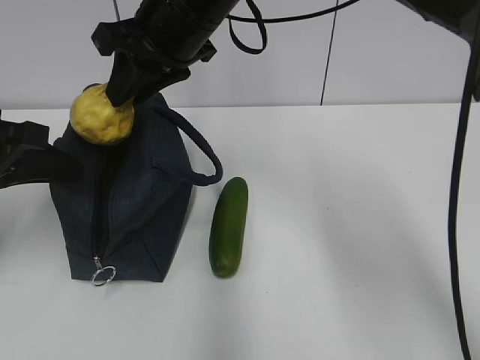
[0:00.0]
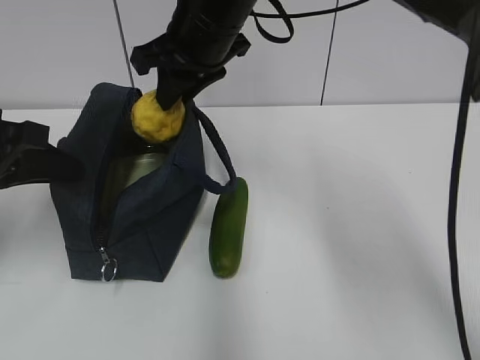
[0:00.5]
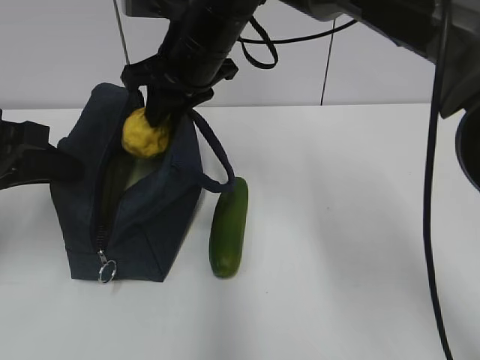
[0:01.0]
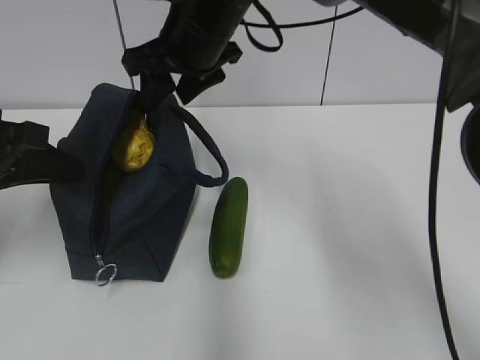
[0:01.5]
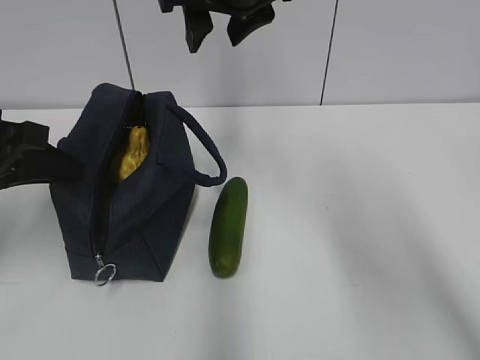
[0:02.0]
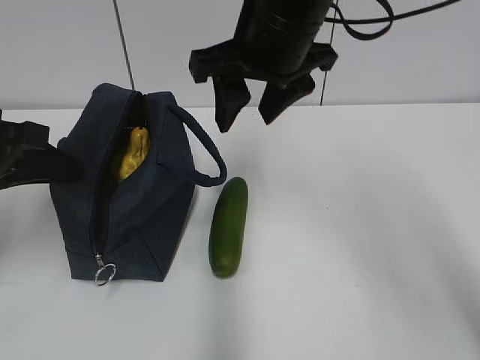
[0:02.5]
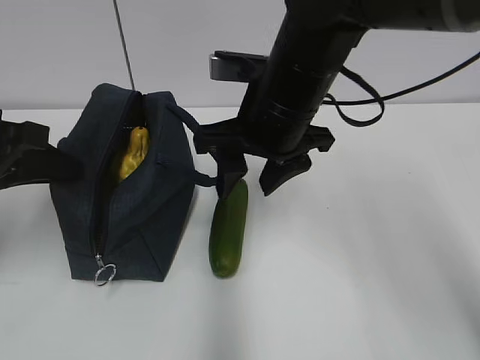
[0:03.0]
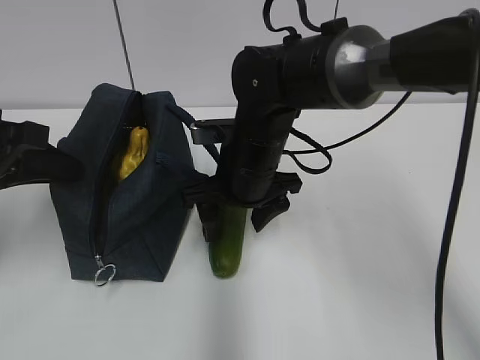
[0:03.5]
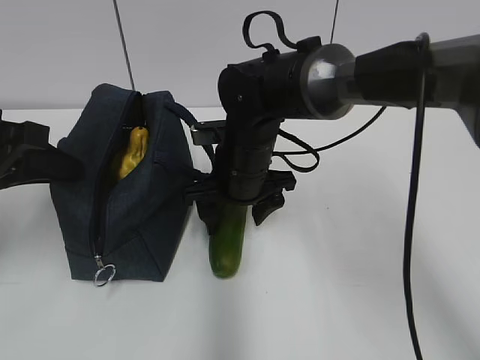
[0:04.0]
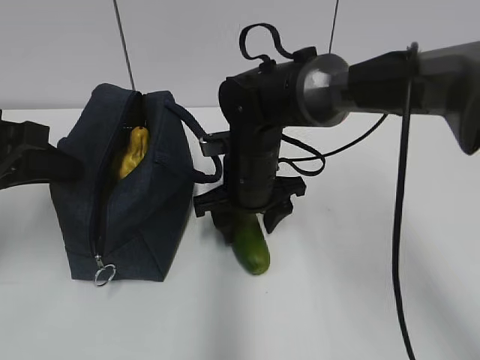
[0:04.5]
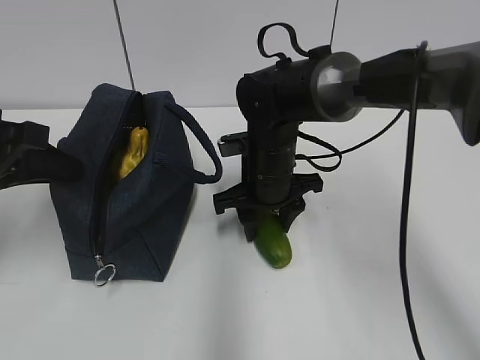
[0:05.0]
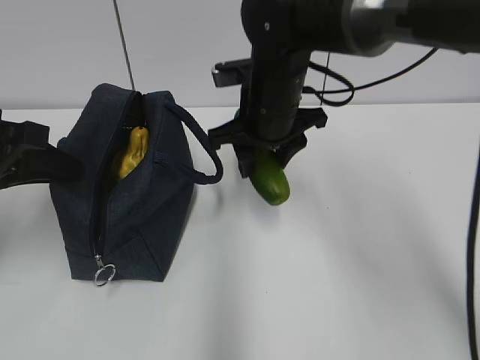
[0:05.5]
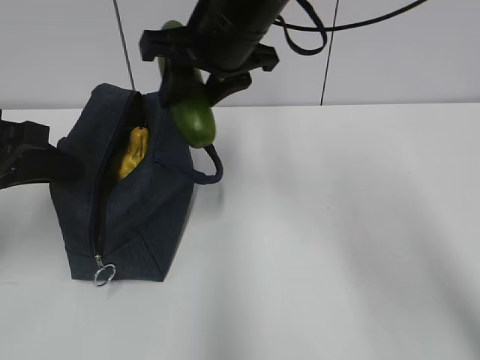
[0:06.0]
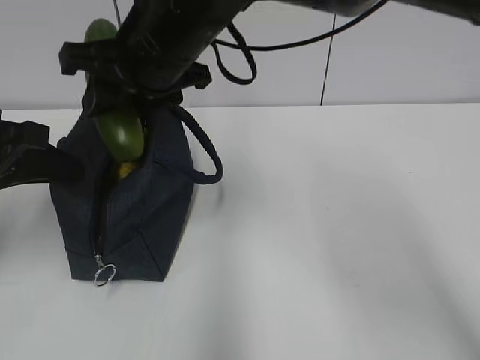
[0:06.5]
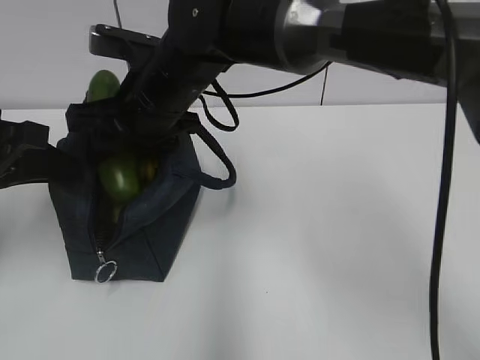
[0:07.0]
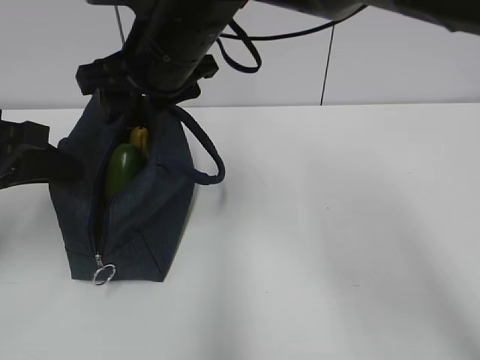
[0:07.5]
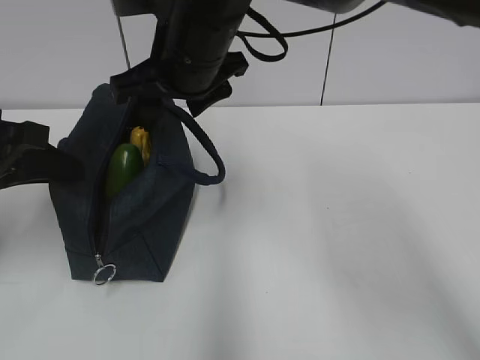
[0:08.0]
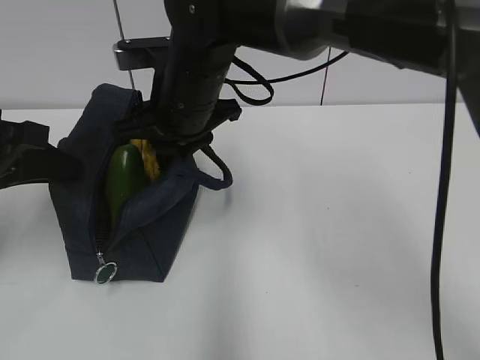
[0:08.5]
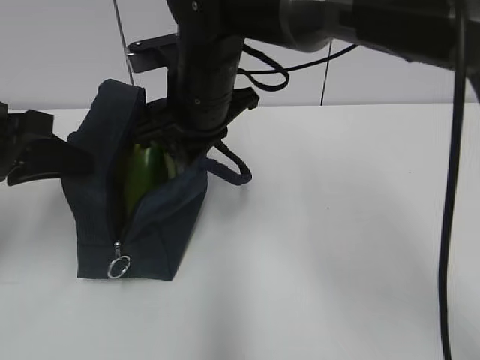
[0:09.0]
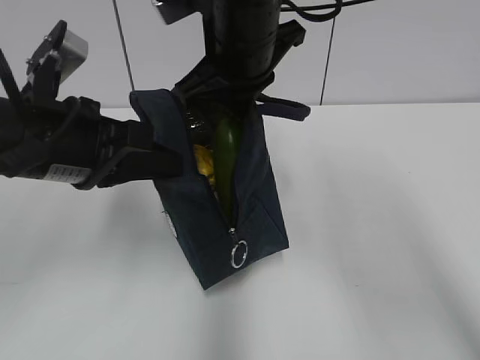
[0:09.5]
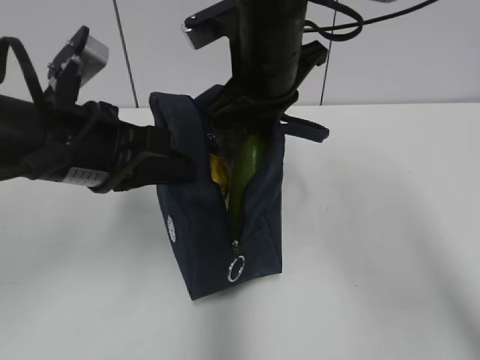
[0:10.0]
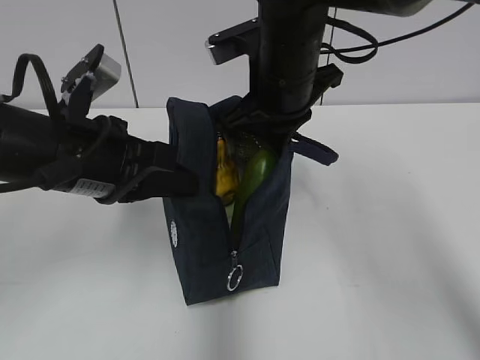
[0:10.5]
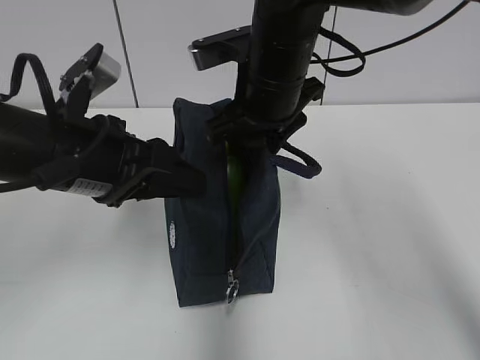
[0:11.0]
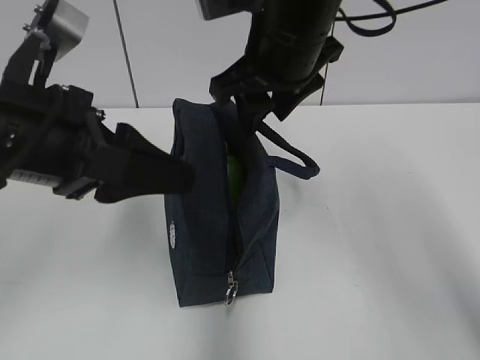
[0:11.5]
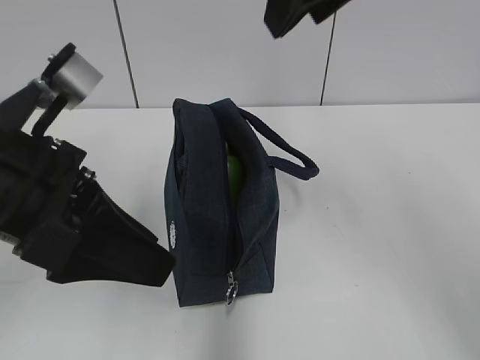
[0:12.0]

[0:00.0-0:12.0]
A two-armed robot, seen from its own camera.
Step, 0:01.5 to 0:02.0: Grab the lunch bag with your right hand.
Step, 0:02.5 to 0:04.0: Move the lunch bag to the right.
0:00.0 to 0:02.0: The right gripper shifts by approximately 5 cm, and opens up.
0:02.0 to 0:04.0: The right gripper shifts approximately 20 cm downward.
0:04.0 to 0:06.0: The right gripper shifts approximately 15 cm upward, and closes.
0:08.0 to 0:10.0: The right gripper heads to the right, covering some 5 cm, and closes. Meanwhile the left gripper shifts approximately 10 cm to the right.
0:10.0 to 0:12.0: The right gripper shifts approximately 15 cm upward, backward and to the right, and opens up, while the left gripper moves backward, about 5 cm, and opens its fingers.

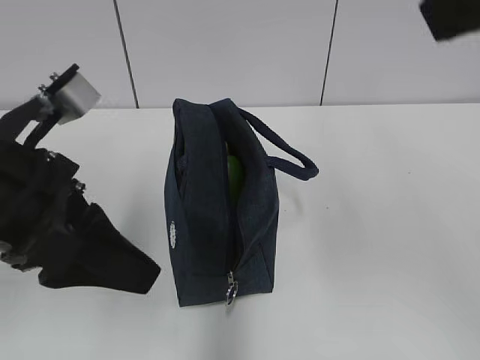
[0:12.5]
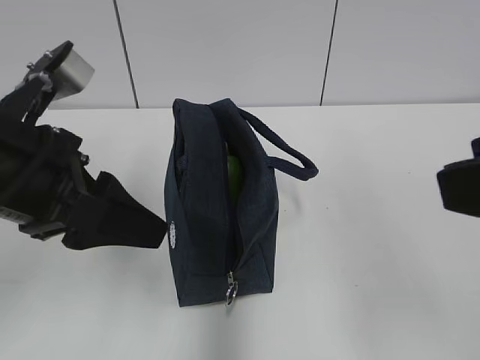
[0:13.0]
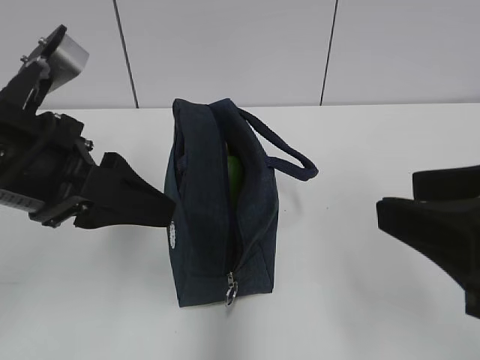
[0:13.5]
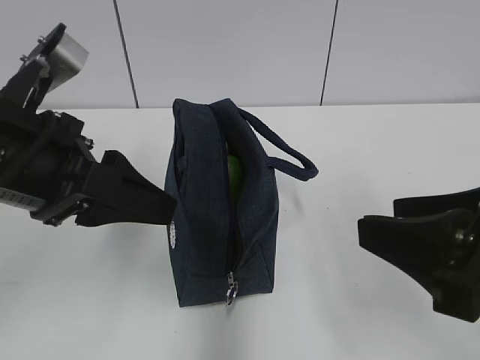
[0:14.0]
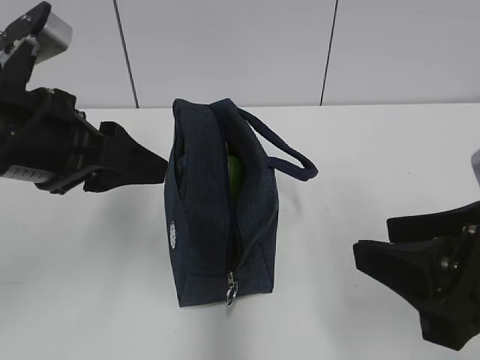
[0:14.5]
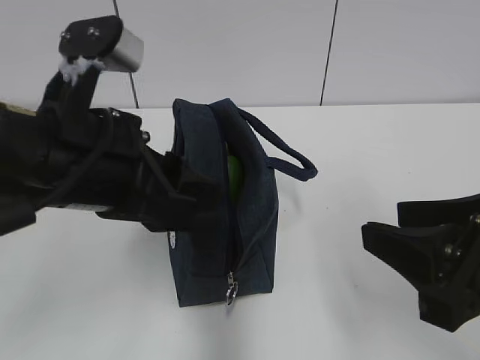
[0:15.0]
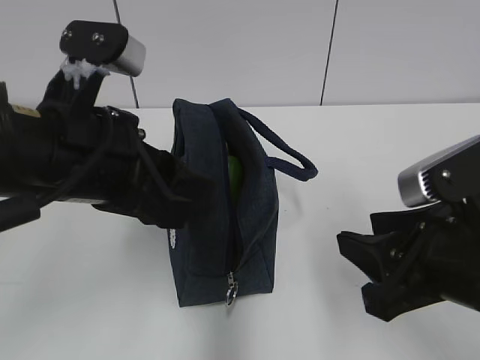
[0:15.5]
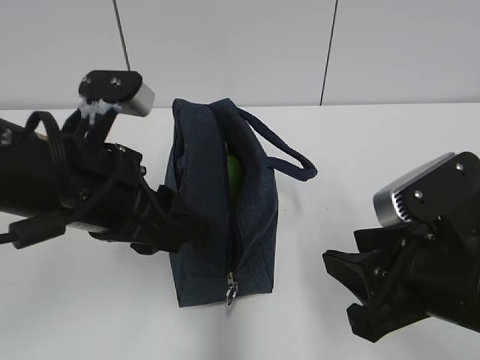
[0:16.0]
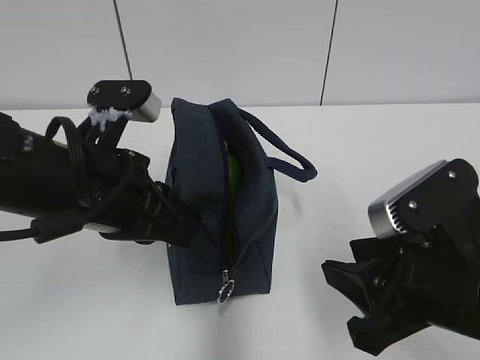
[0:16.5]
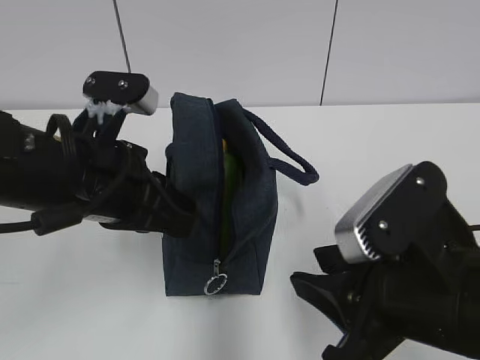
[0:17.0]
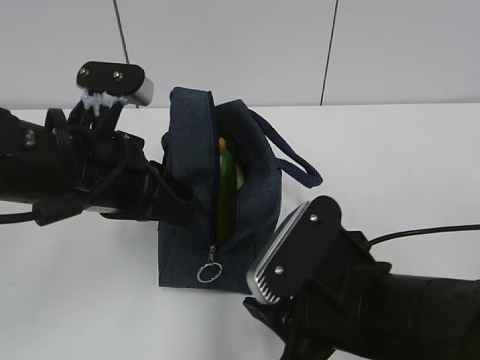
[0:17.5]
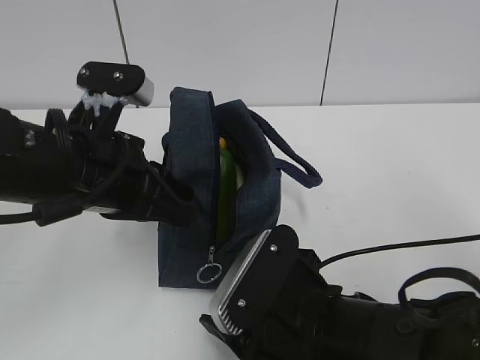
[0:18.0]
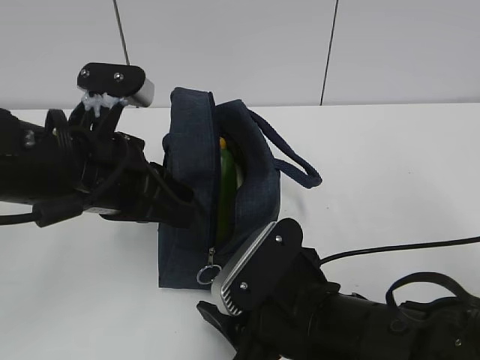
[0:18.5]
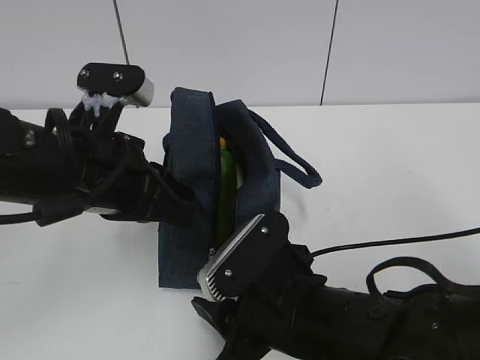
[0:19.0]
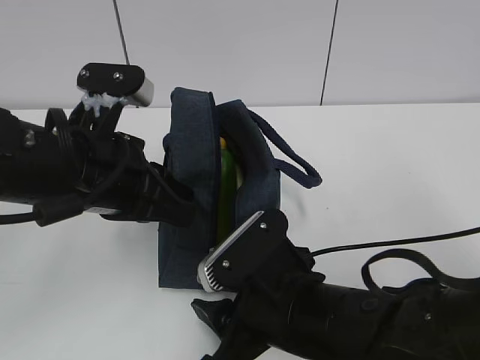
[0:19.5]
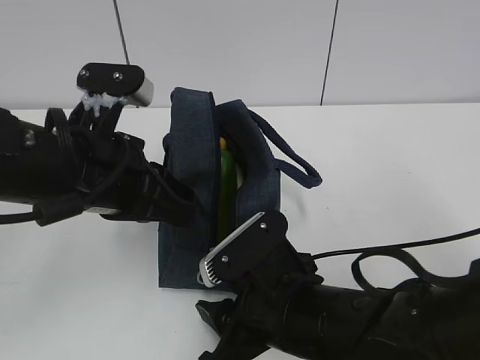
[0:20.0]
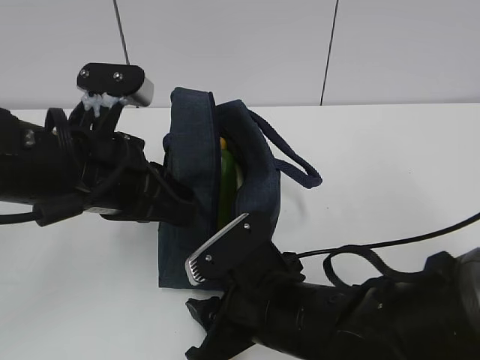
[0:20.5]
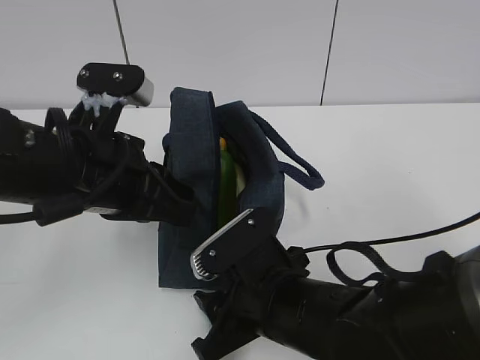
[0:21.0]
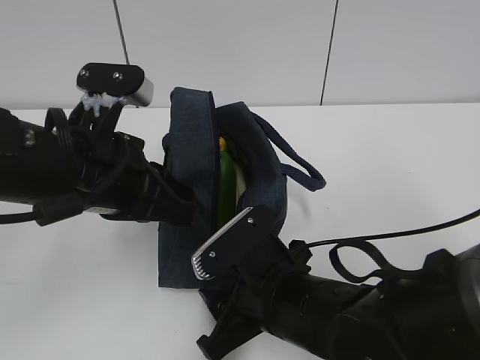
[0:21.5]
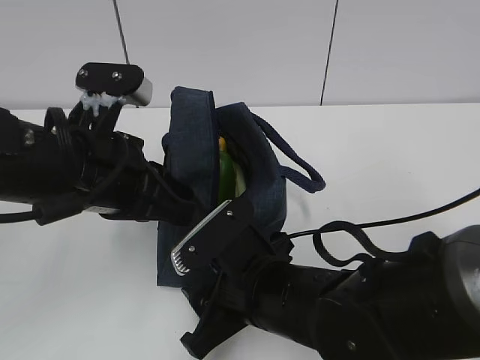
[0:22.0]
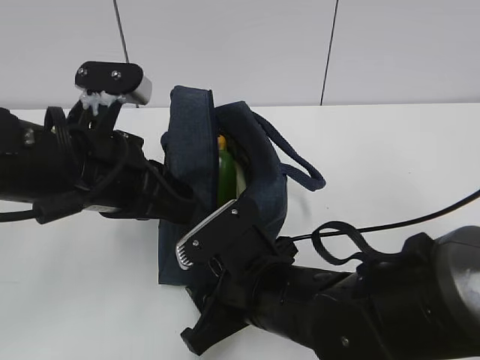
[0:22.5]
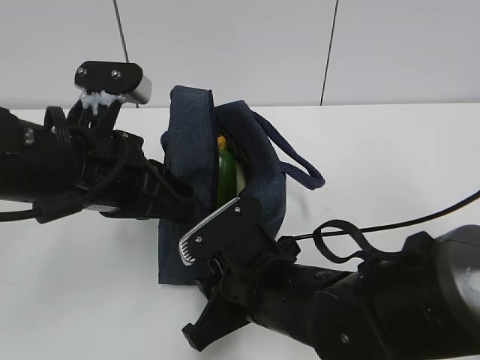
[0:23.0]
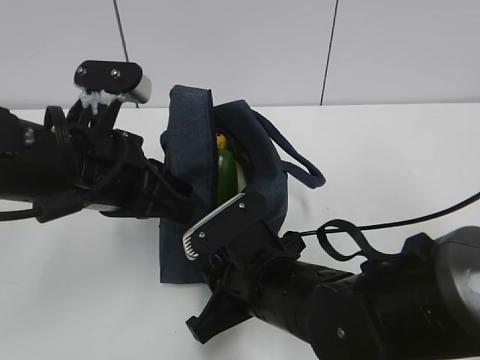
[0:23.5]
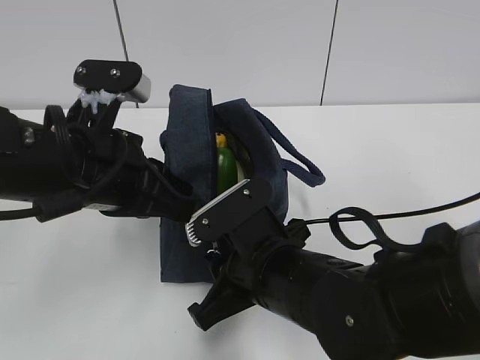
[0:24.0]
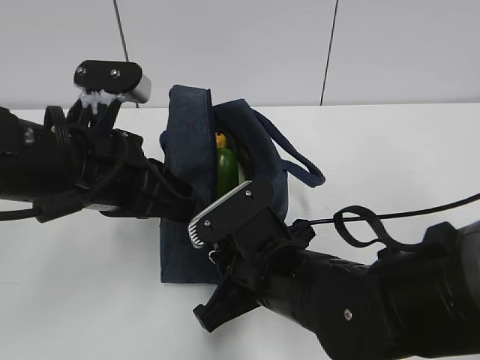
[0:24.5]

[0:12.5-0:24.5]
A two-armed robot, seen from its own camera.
Step, 0:12.5 to 0:23.0: Grab the lunch bag with your left hand.
0:12.5 to 0:14.5: The right gripper heads downward, covering approximately 20 cm.
0:14.5 to 0:16.5: The right gripper heads downward, covering roughly 5 cm, while the left gripper ends up some 5 cm from where it was, and closes.
0:16.5 to 0:18.5: The right gripper heads to the left and downward, covering about 10 cm.
0:18.5 to 0:22.5: The grippers move only a little.
0:22.5 to 0:24.5: The right gripper closes its fingers.

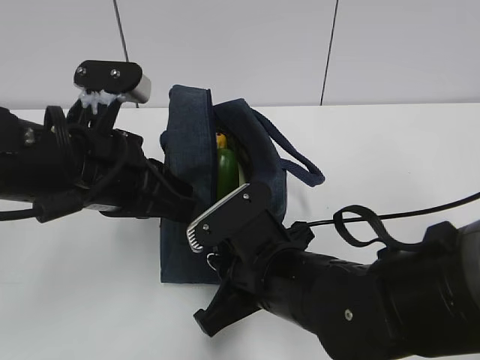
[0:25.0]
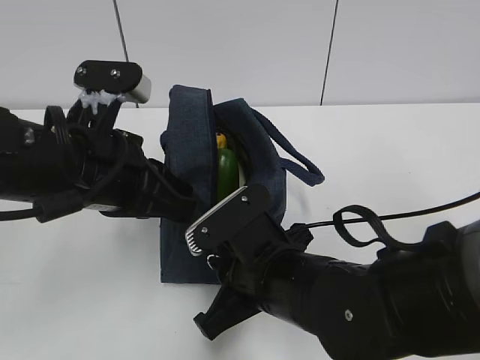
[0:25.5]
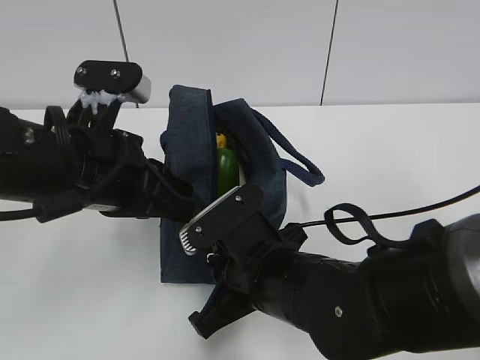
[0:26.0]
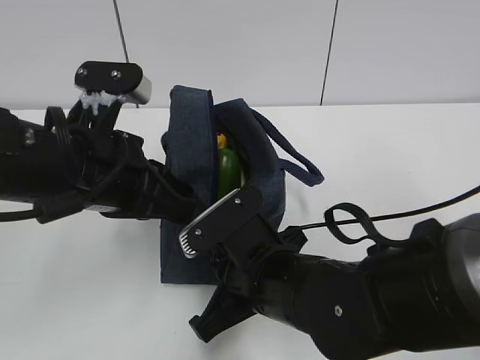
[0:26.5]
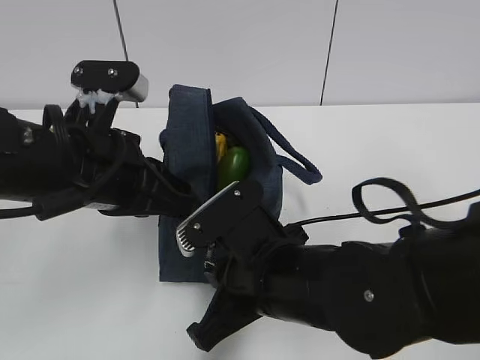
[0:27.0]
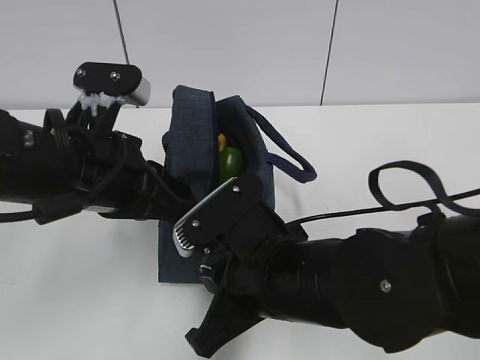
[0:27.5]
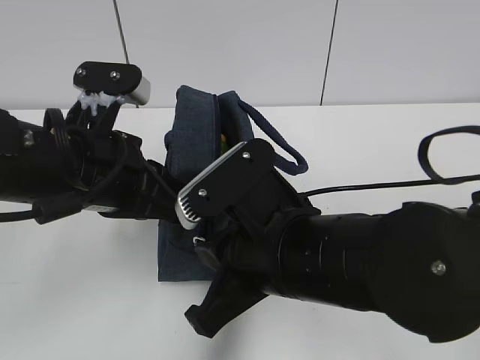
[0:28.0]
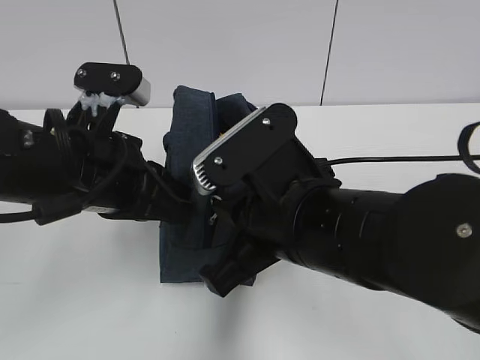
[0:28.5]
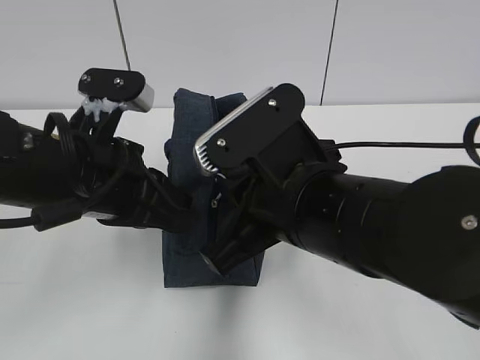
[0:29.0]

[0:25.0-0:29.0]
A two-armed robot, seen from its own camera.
Step, 0:25.0 to 0:27.5: Pull the zipper with your right hand.
0:25.0 to 0:27.0: The grippers stay close to where they were, moving slightly.
0:27.0 to 0:29.0: The right gripper travels upward by some 10 cm.
